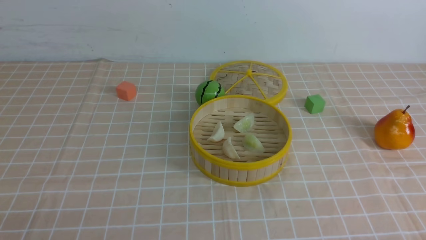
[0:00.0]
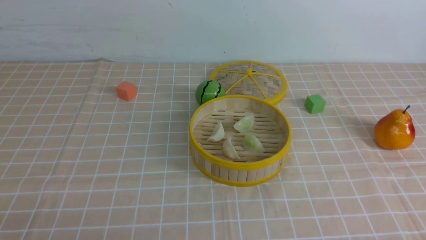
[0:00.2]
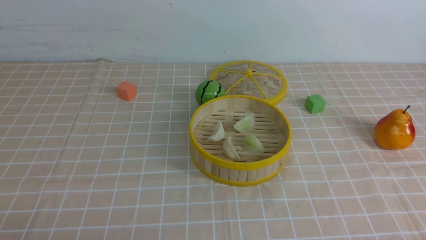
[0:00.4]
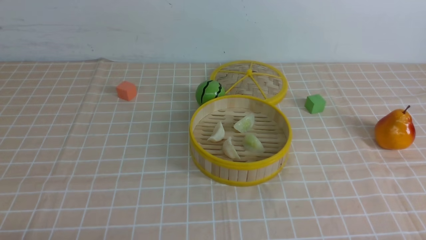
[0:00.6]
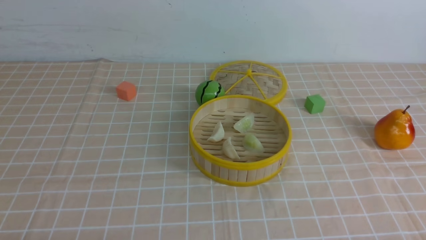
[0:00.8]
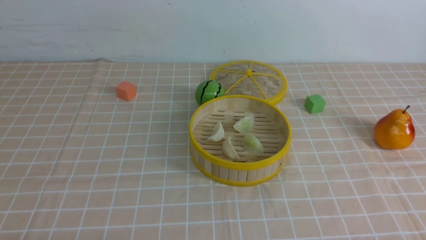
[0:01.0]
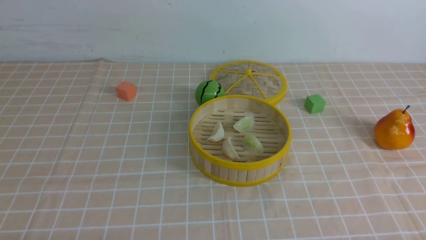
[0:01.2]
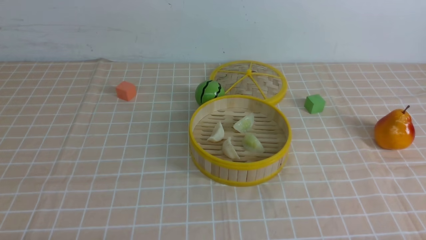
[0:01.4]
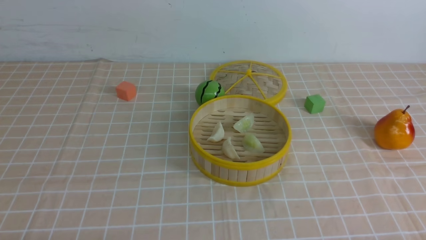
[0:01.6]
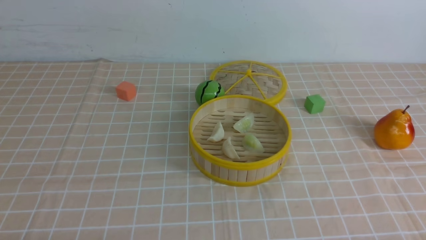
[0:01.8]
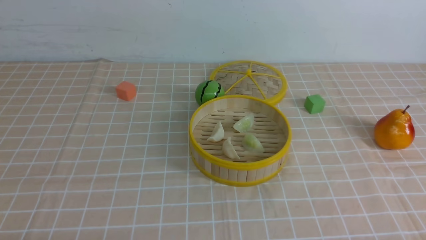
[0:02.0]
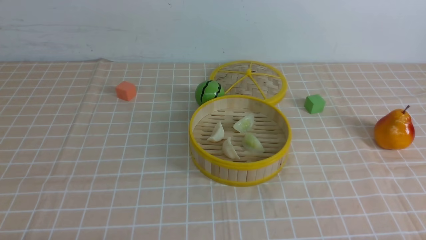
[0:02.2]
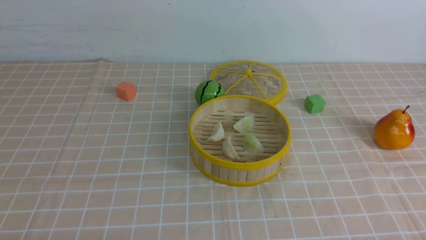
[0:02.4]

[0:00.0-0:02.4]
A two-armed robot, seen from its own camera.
Task of the whole recording: put the dumplings into the steamer on the table with the brown tablecloth.
0:01.2 to 0:02.4: Both grippers stay put.

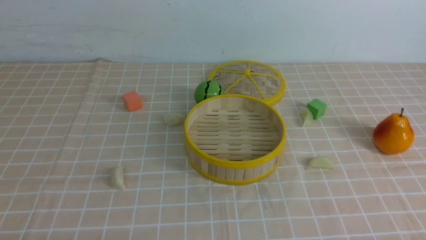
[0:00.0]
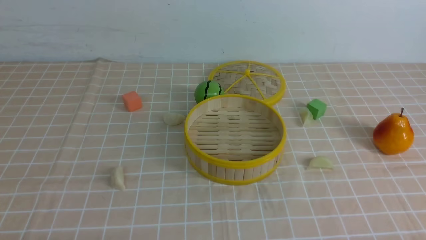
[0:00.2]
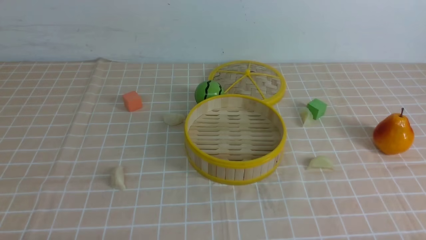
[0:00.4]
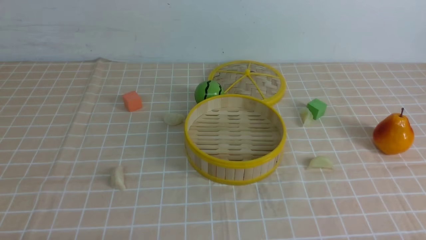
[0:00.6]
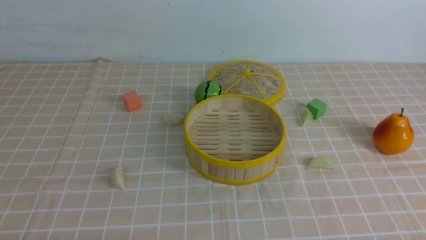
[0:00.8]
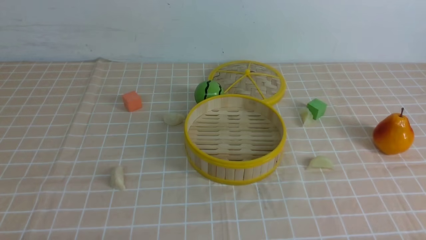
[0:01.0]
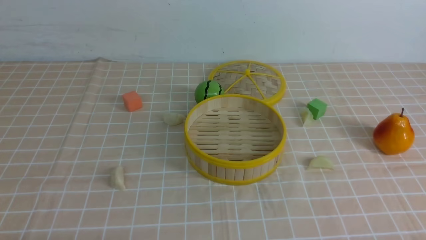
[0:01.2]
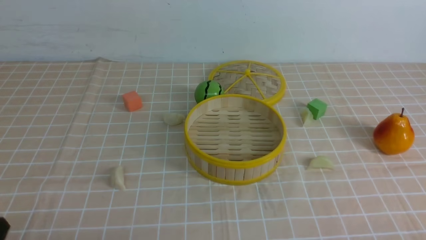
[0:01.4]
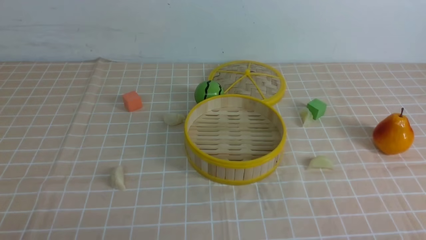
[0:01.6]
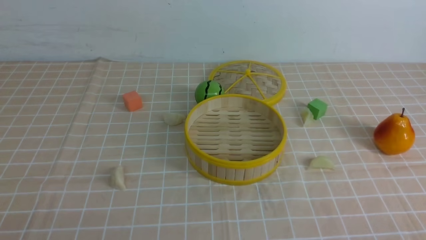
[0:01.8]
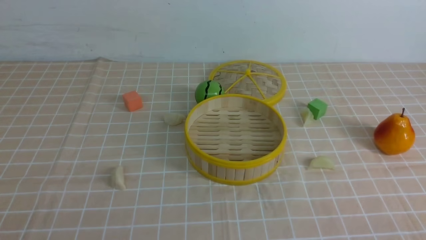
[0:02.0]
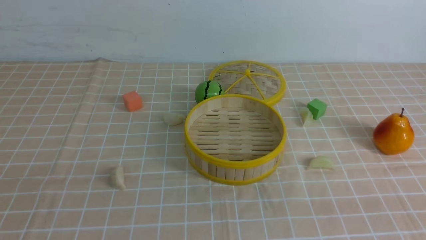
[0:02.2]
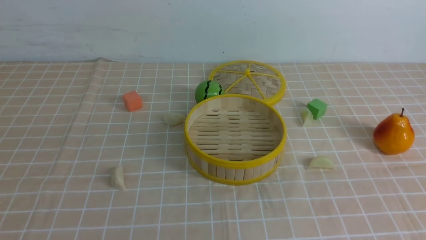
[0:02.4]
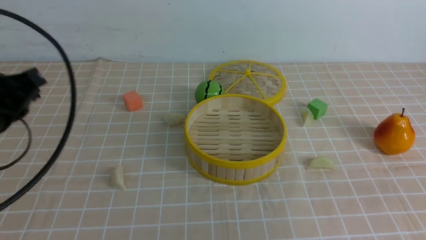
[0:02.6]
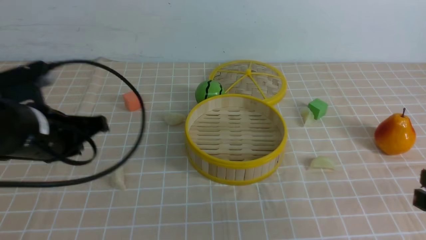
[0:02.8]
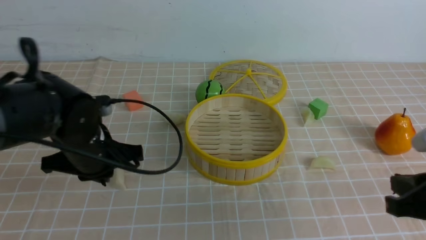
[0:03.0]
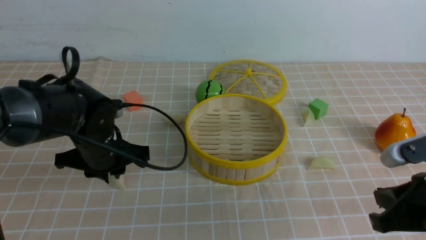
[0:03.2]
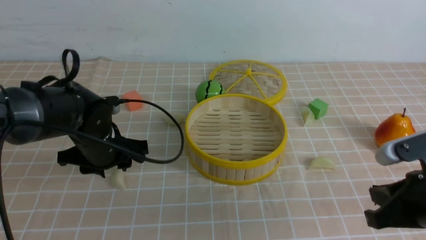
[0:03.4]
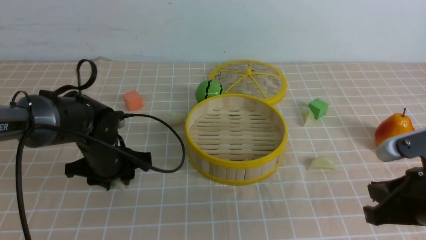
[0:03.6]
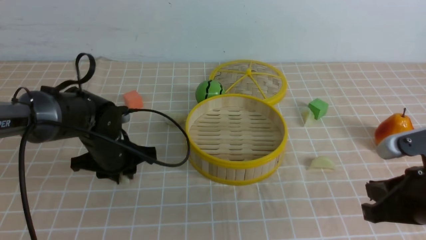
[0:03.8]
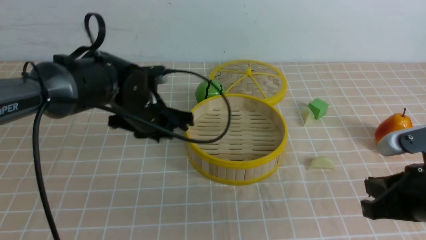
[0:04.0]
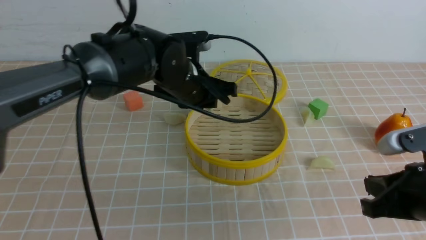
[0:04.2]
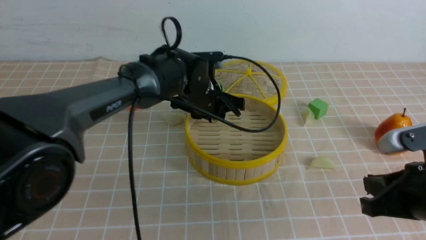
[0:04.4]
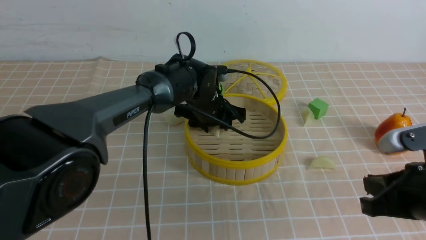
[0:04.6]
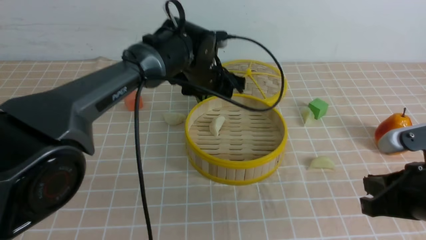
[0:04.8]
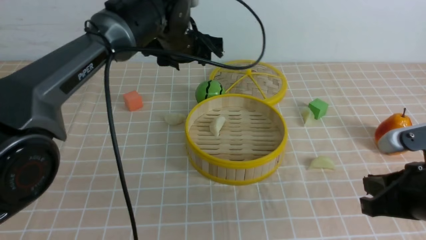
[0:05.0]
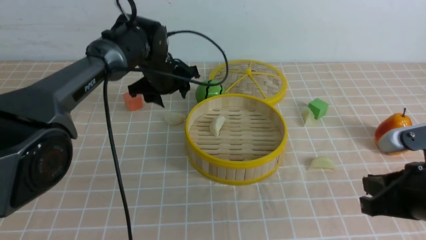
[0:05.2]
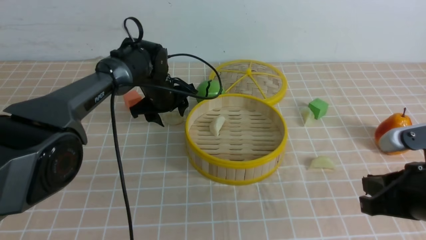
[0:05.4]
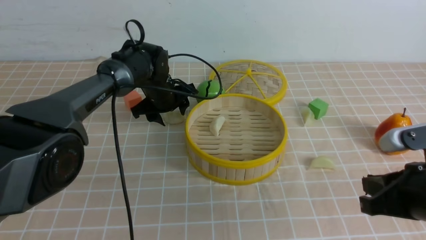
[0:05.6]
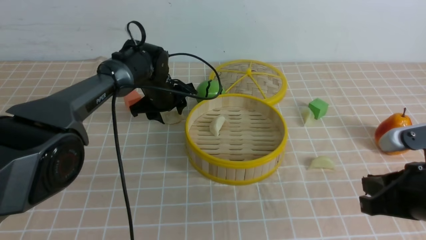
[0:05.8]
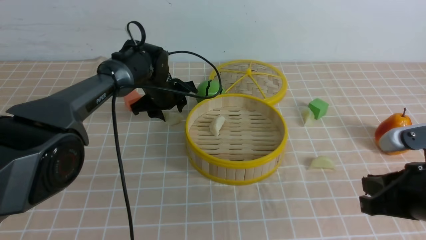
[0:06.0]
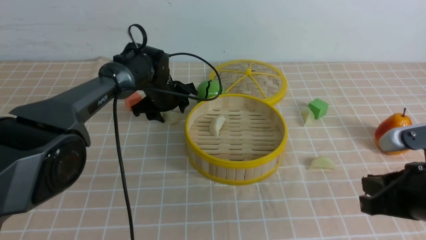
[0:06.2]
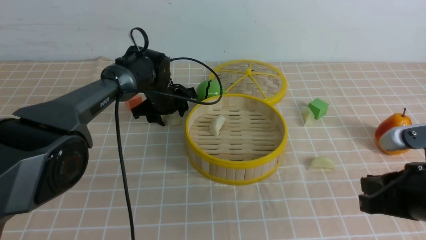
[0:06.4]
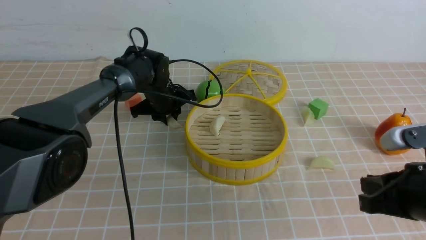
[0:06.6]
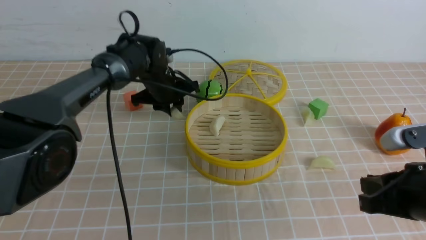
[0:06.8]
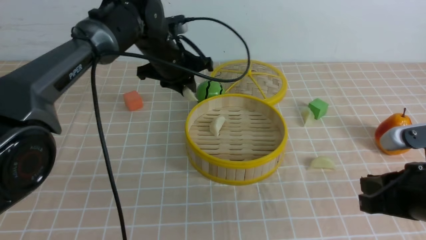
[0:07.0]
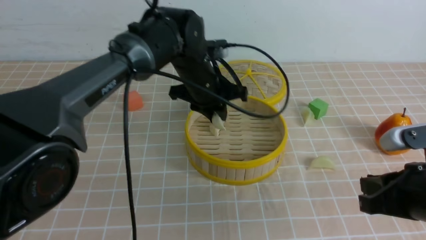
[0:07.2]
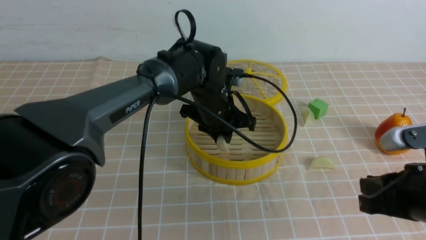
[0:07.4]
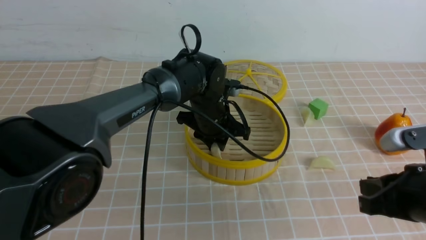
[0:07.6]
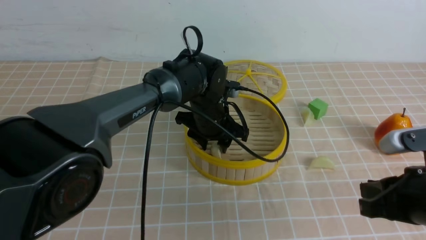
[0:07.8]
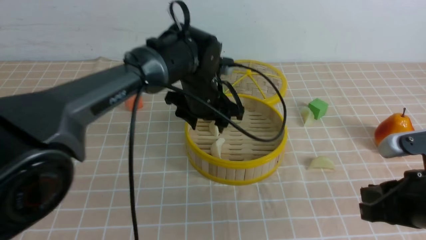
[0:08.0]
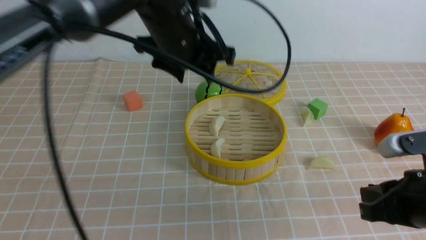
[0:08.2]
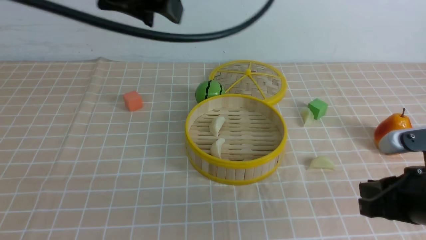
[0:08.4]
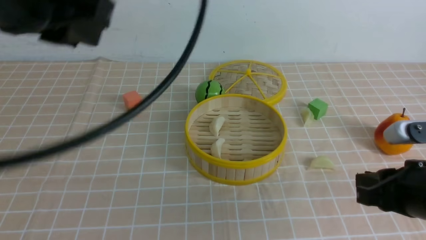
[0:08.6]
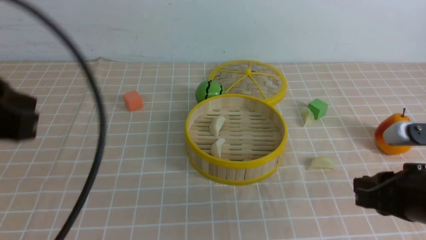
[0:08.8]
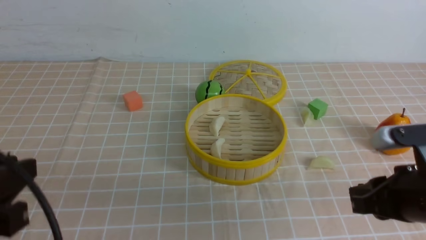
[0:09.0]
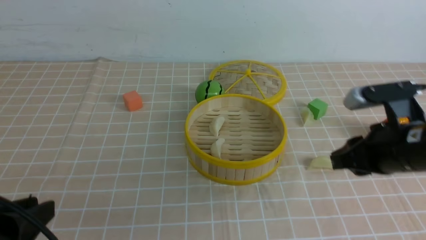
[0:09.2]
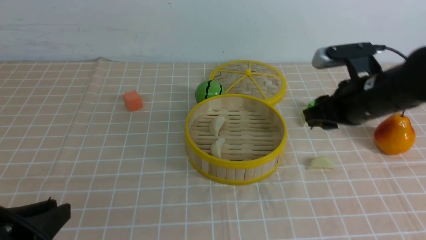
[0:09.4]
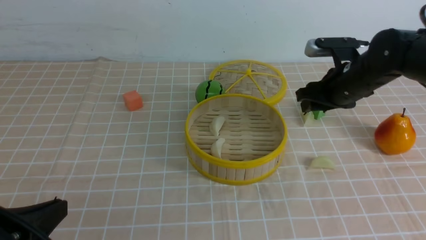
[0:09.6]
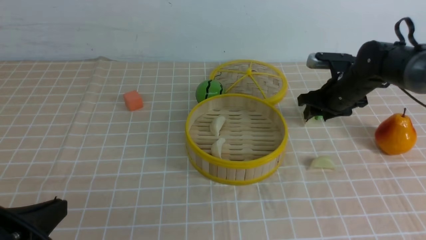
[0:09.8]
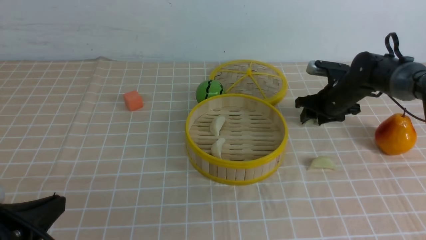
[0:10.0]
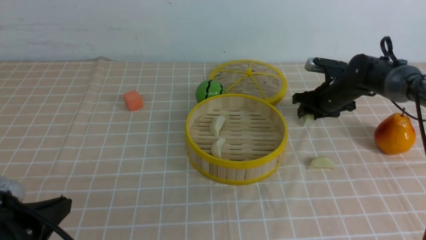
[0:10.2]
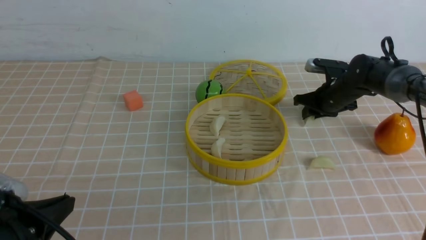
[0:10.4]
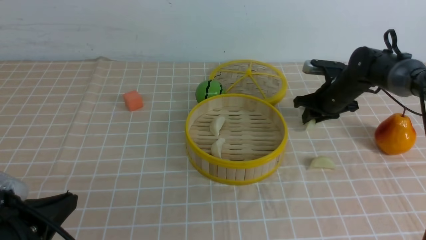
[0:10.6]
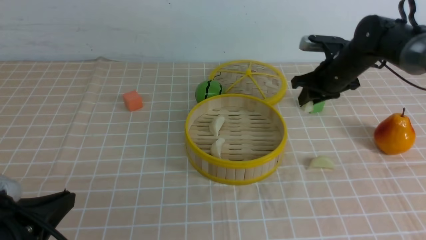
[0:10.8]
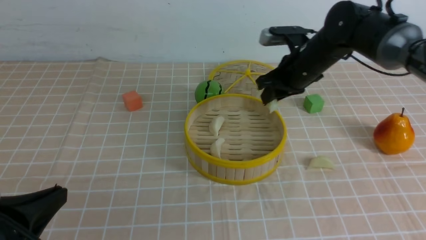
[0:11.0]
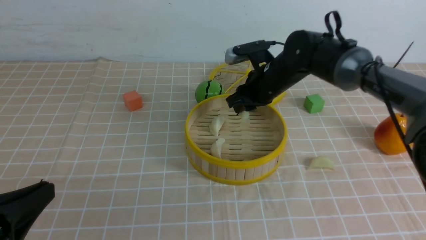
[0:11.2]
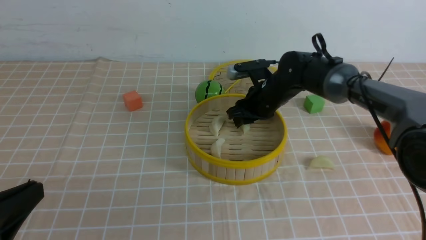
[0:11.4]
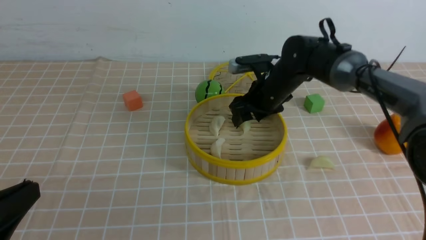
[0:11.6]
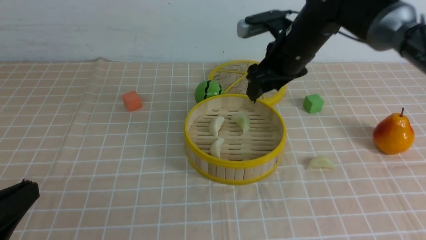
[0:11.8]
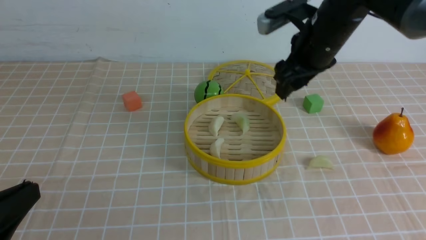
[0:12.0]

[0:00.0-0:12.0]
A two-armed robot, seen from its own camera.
Task of the whole recording: put the dumplings into the steamer on the table with the brown tablecloth.
Step, 0:00.0 to 0:03.6: use the left arm to grab a dumpling.
Step, 0:03.8 to 0:04.8: use the left arm to put the dumpling into the steamer.
Step, 0:05.0 to 0:06.4: use the left arm to grab a dumpling.
Step, 0:06.6 to 0:07.8: use the left arm to put the dumpling into the steamer.
Step, 0:08.2 to 0:10.4: use the right arm to grab a dumpling.
Step, 0:10.6 to 0:11.6: use the right arm to put the dumpling into the steamer.
0:01.6 to 0:03.0: The right gripper moves forward, some 10 cm; the left gripper shifts approximately 25 cm forward, and closes its fingers.
0:03.0 to 0:04.4: The left gripper travels to the right and forward by roughly 20 cm, and opens up.
0:04.4 to 0:06.0: The left gripper is displaced to the left and forward by about 10 cm.
0:06.0 to 0:07.6: The left gripper goes about 15 cm to the right and backward.
0:07.6 to 0:09.0: The left gripper heads backward and to the left, covering approximately 40 cm, and opens, then closes again.
0:09.0 to 0:10.4: The right gripper goes approximately 30 cm forward; the left gripper goes some 10 cm downward, and closes.
0:10.4 to 0:12.0: The right gripper moves upward, to the left and backward, about 20 cm, and opens.

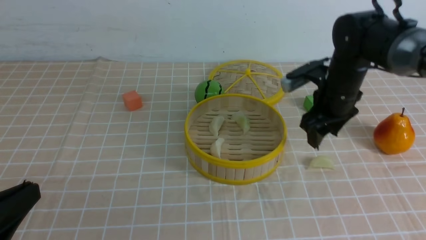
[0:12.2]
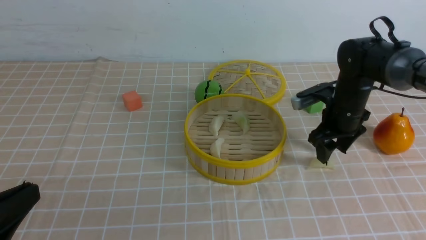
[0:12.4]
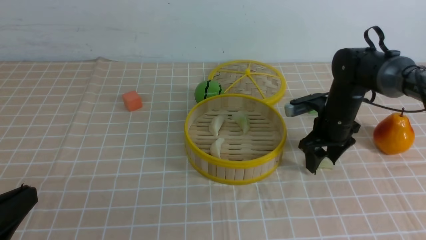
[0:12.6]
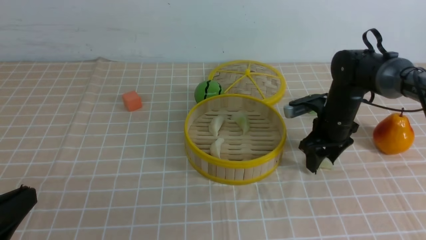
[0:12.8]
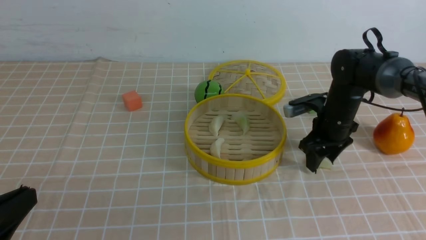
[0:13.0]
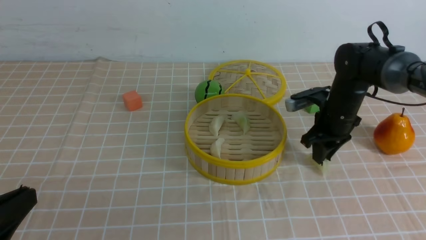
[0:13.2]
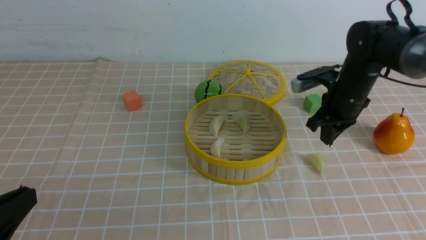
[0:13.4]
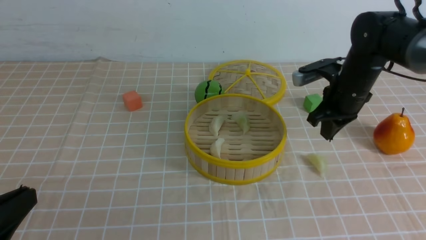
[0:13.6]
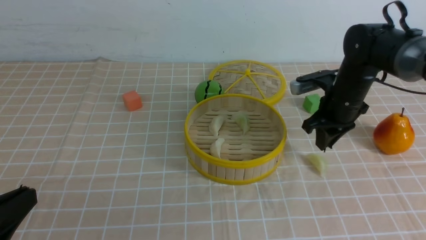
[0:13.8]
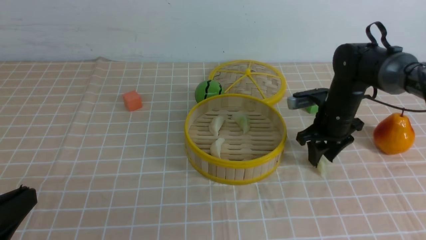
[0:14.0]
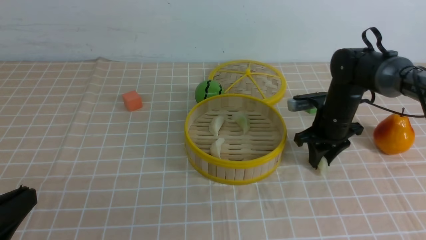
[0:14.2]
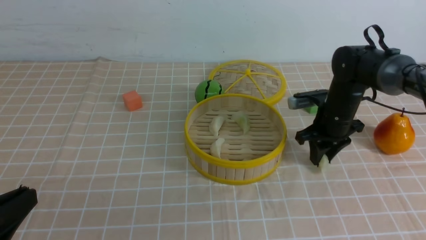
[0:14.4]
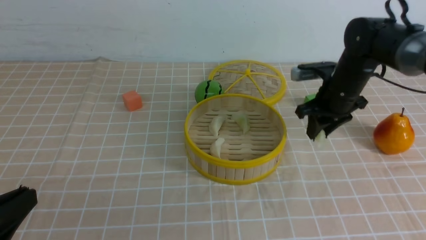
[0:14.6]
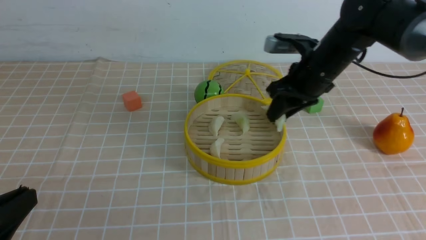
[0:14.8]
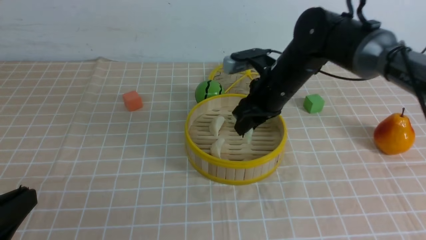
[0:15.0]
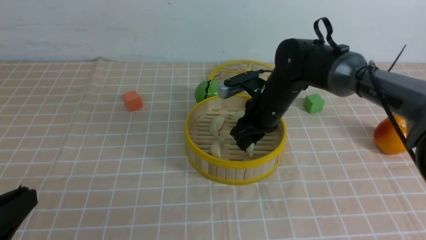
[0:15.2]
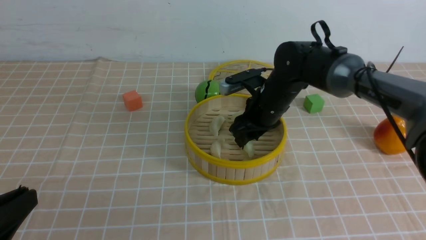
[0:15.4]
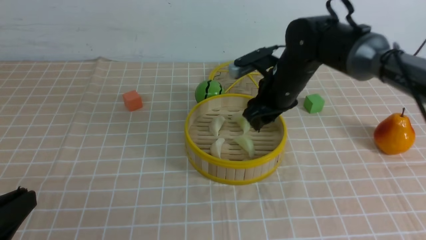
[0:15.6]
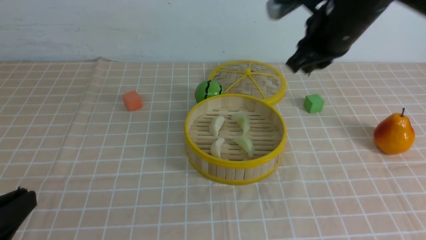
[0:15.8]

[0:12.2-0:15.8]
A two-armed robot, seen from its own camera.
Task of the whole recording: put the dumplings into the steamer on the table with the brown tablecloth.
Step, 0:12.2 to 0:14.2: use the right arm to grab a dumpling.
Step, 0:14.4 to 0:15.6: use the right arm to put the dumpling into the steamer.
0:12.2 to 0:14.0: The right gripper goes up and down, some 10 cm each way, reversing 2 times, and closes up.
0:14.0 to 0:15.8: The right gripper moves up and down over some 25 cm, changing direction 2 times.
